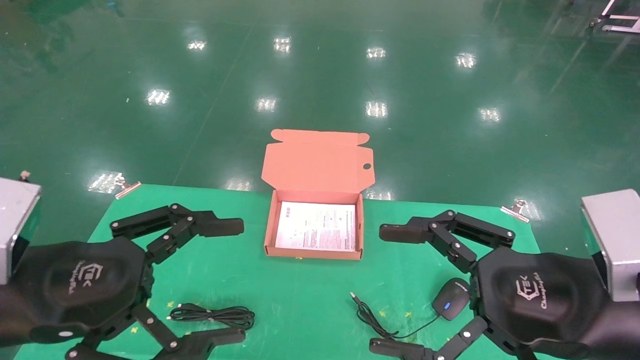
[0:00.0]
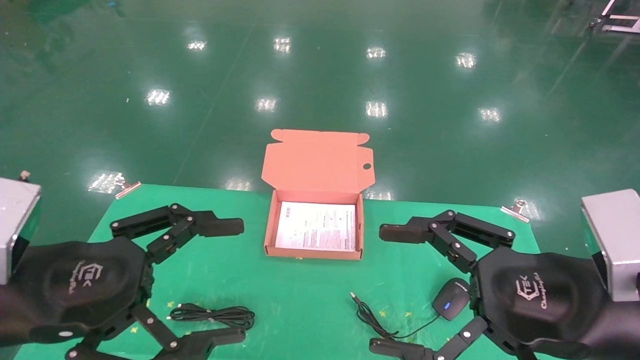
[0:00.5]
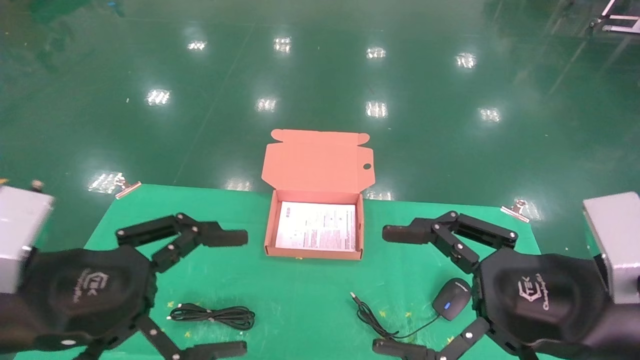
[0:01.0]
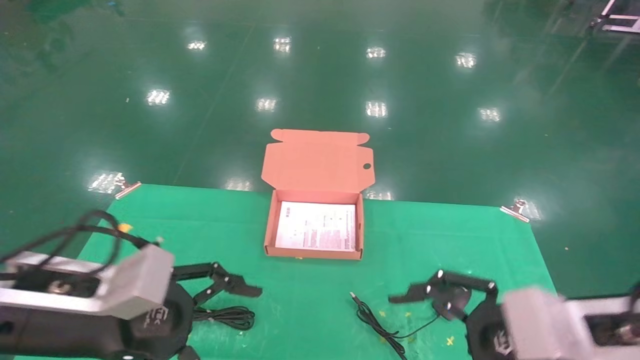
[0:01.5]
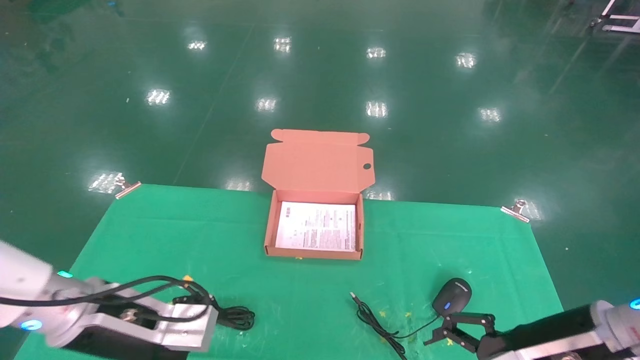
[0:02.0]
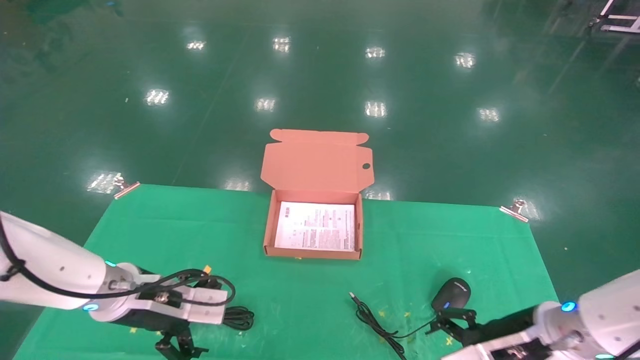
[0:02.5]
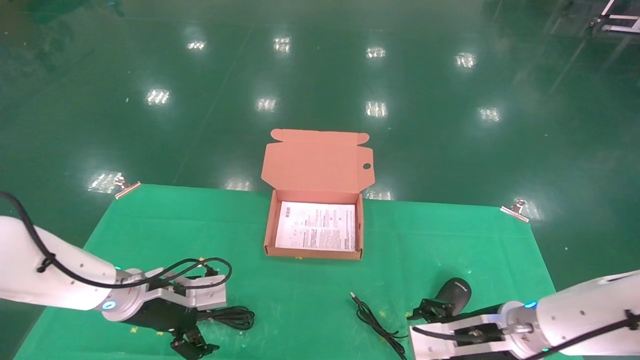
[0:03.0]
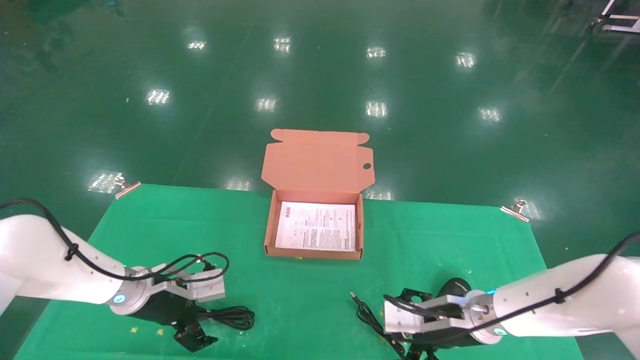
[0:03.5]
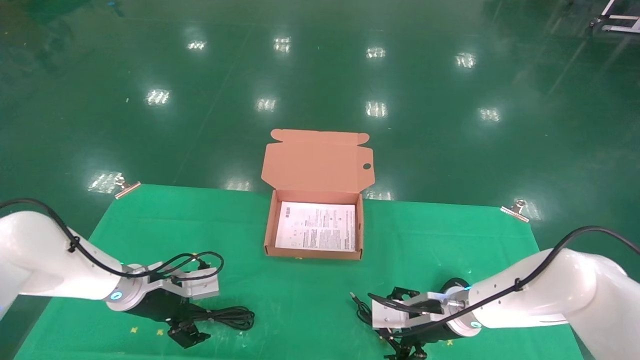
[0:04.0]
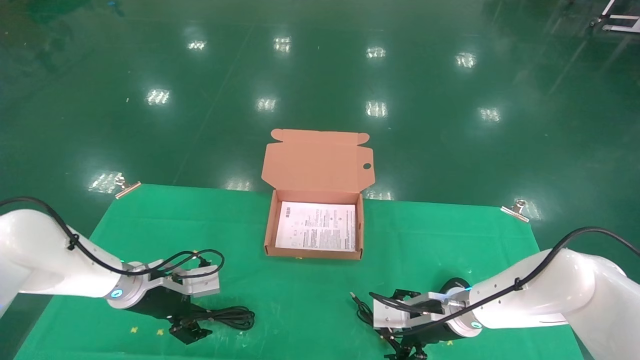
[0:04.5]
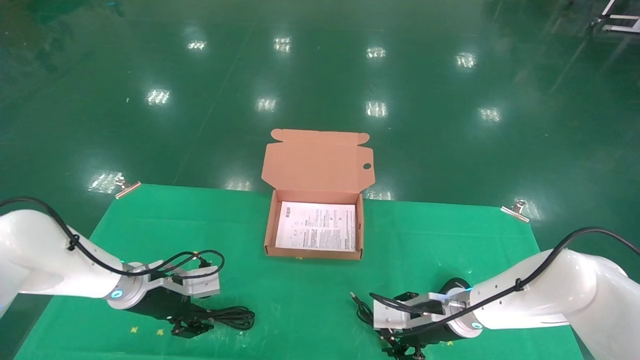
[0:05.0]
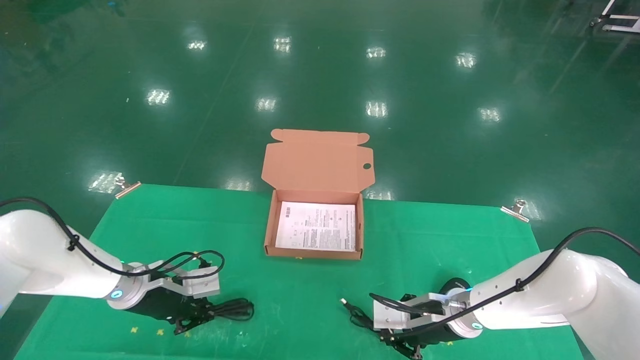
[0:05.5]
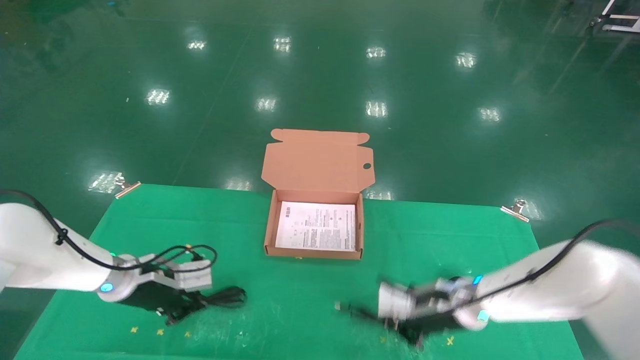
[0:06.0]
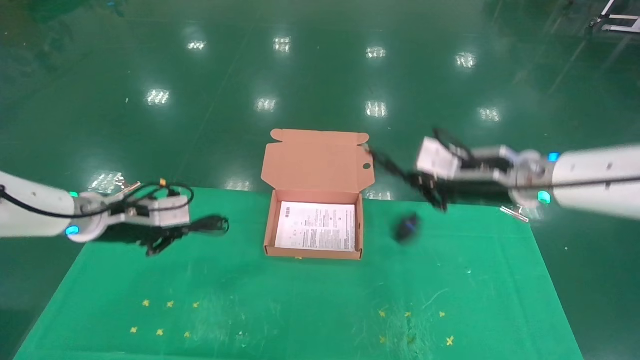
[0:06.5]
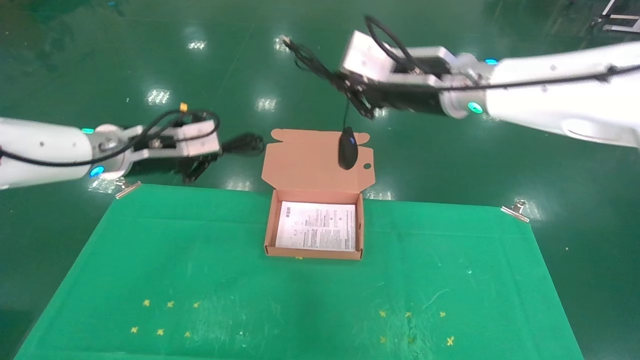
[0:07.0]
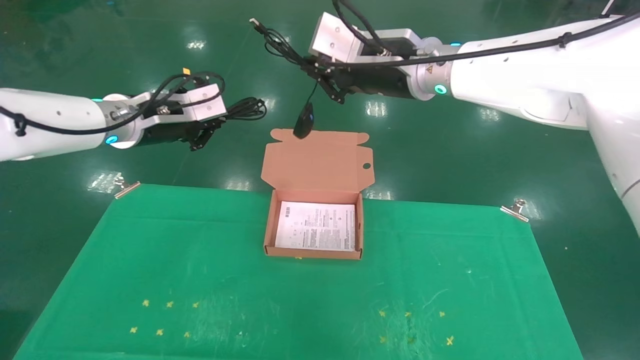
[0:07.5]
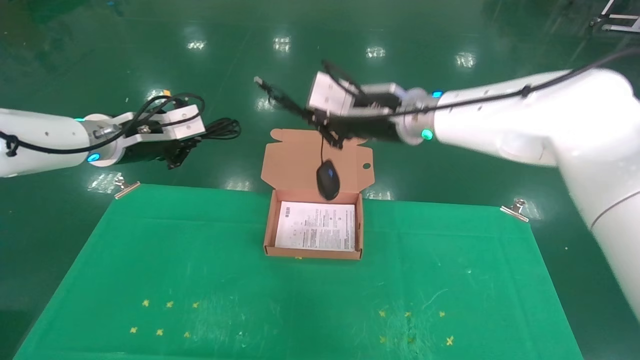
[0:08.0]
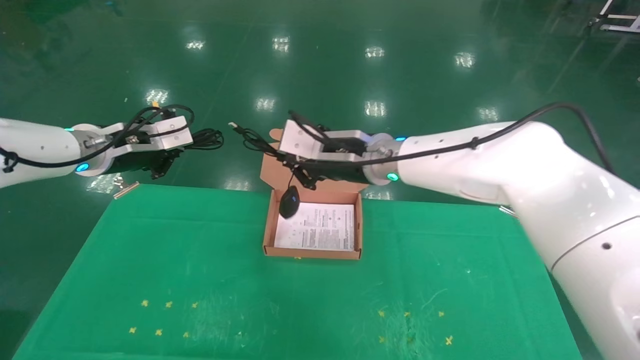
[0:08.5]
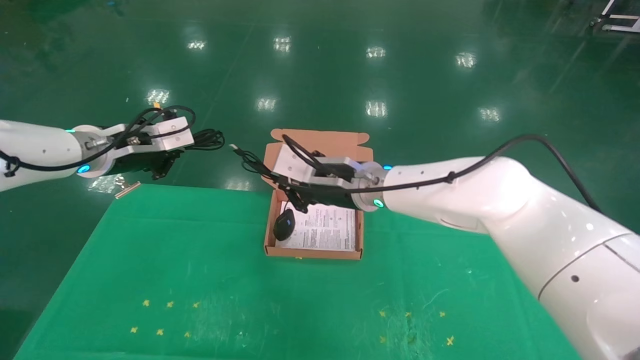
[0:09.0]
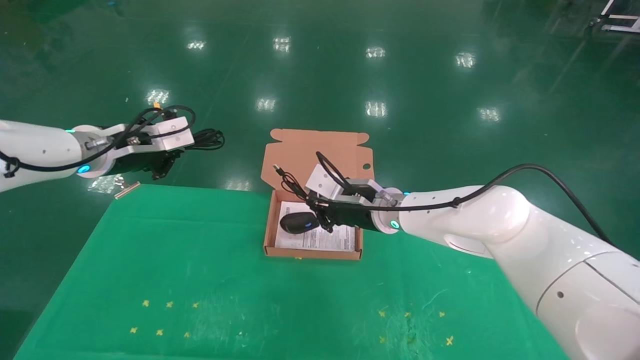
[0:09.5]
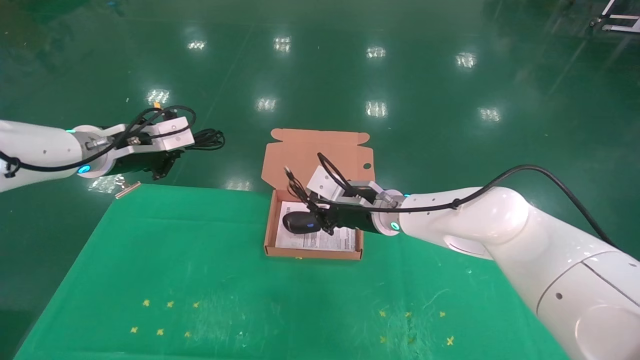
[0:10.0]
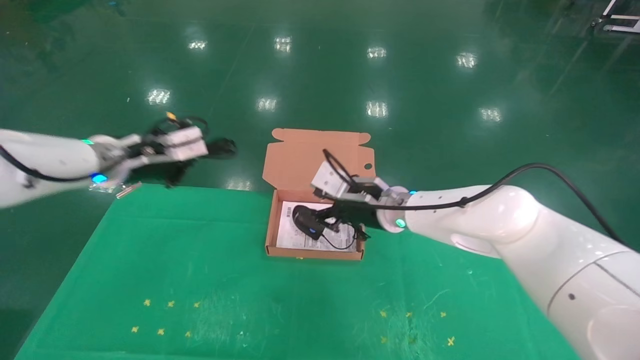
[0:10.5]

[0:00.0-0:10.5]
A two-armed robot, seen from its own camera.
Task of the whole recording: grasp data cable left put into box grasp mouse right put into box.
Step, 0:00.0 to 0:06.0: Grab and pick up both the mouse and power cord from the accessory packaging area at the same time.
0:00.0 to 0:02.0: The right gripper moves downward and forward, some 10 cm; the left gripper heads forward and downward, covering about 15 cm.
0:02.0 to 0:04.0: The right gripper heads forward, downward and to the left, covering approximately 20 cm. Meanwhile the left gripper moves forward and downward, roughly 15 cm.
0:04.0 to 0:06.5: The right gripper shifts some 25 cm upward, and closes its fingers. The left gripper is displaced upward by roughly 15 cm, and closes up.
0:06.5 to 0:08.5: The right gripper heads to the left, covering about 15 cm; the left gripper moves upward, about 10 cm.
0:08.5 to 0:10.5: The right gripper heads downward, covering some 10 cm.

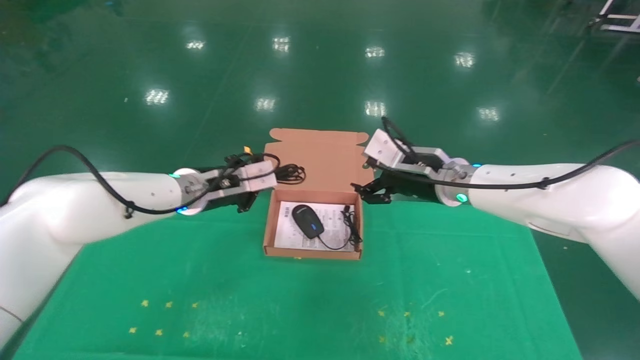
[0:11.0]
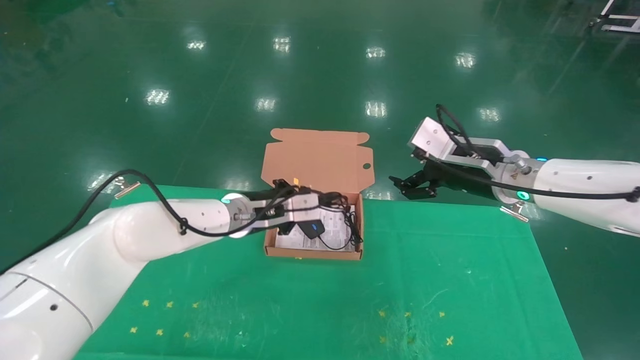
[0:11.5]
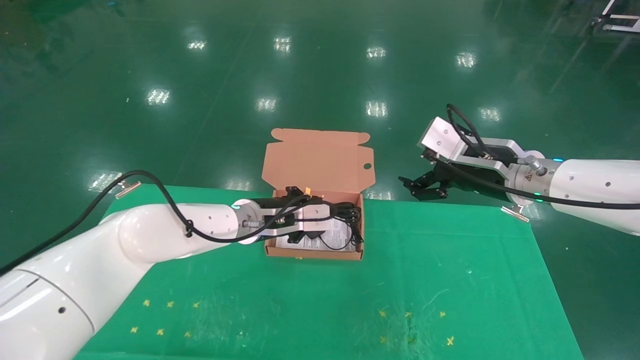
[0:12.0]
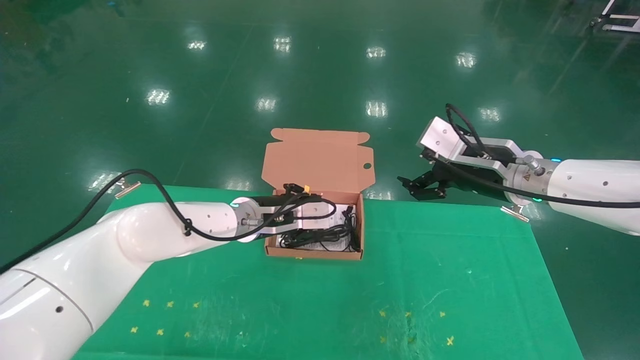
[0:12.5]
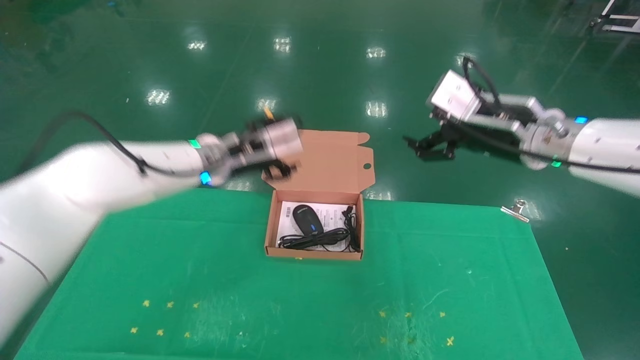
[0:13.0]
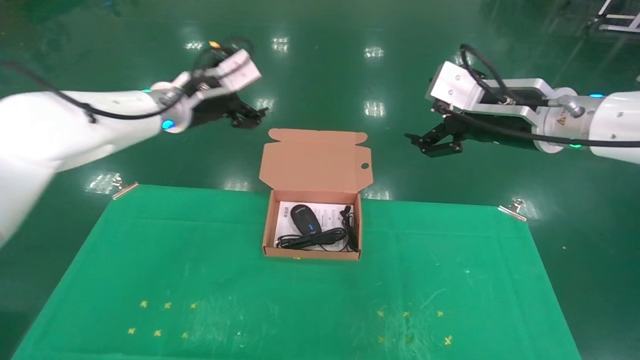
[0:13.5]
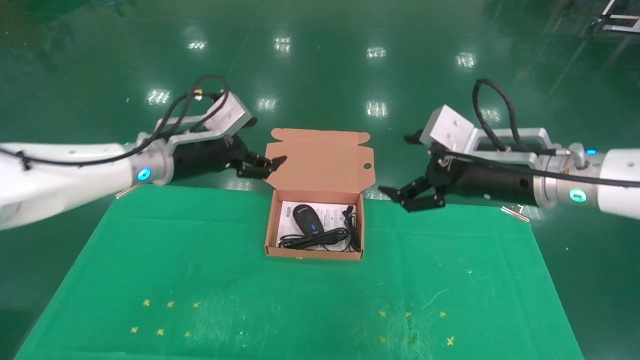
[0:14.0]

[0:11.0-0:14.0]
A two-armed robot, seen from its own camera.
Task of the whole recording: grasp data cable left put into box grasp mouse right put into box.
Step, 0:11.0 to 0:13.0: Place the mouse and power cord into the box.
0:11.0 to 0:12.5: The left gripper shifts about 10 cm to the right and downward; the right gripper goes approximately 10 cm to the right and backward.
0:12.5 to 0:14.0: The right gripper is displaced backward by roughly 5 cm. The left gripper moves to the left and upward, some 15 cm, and opens.

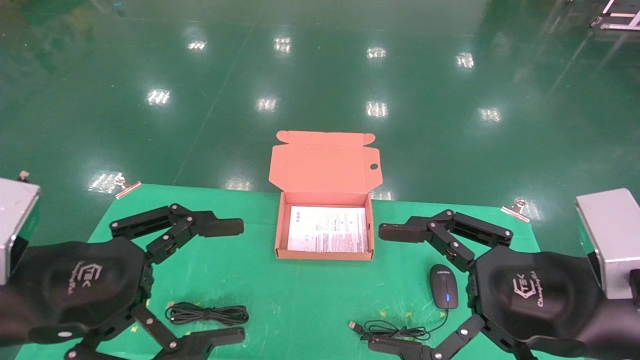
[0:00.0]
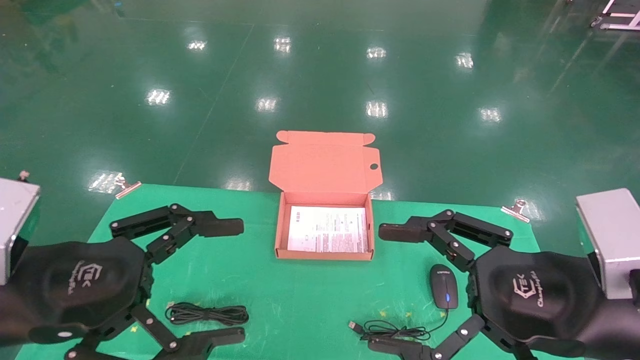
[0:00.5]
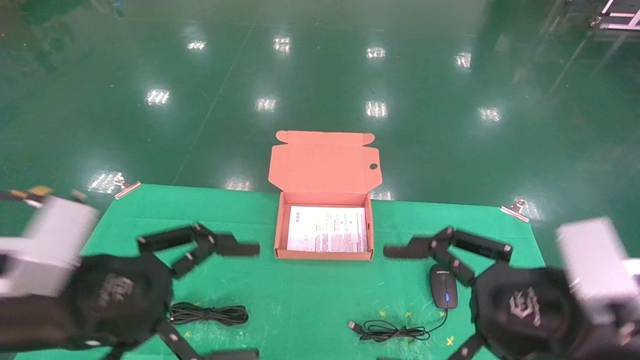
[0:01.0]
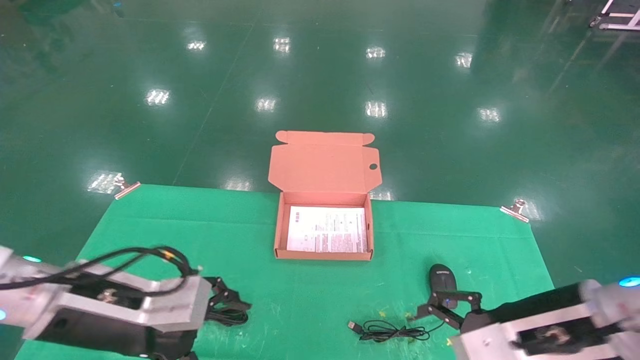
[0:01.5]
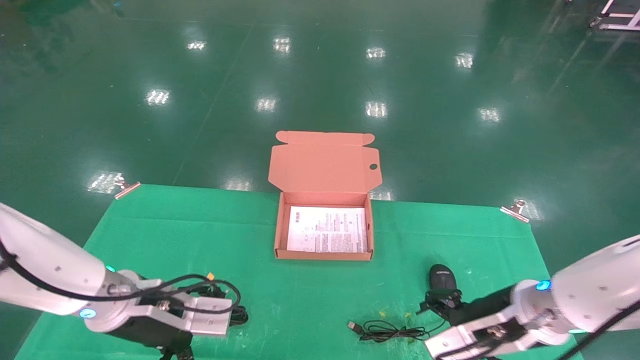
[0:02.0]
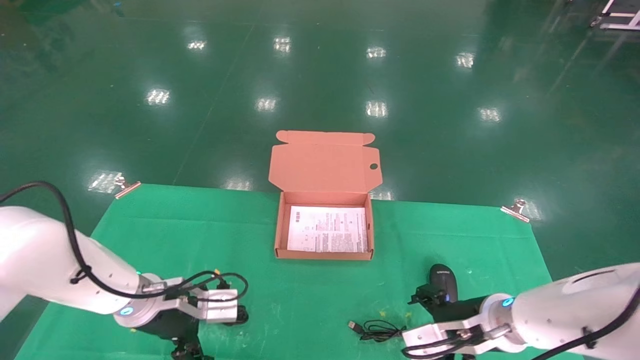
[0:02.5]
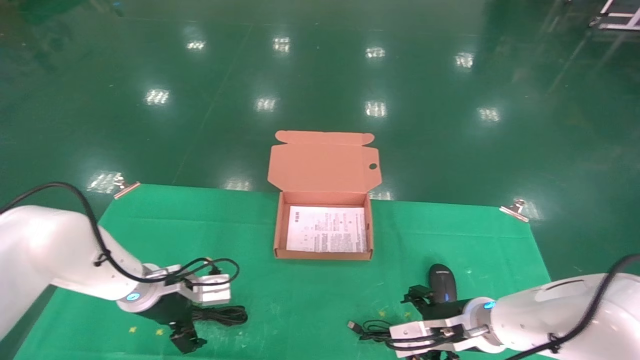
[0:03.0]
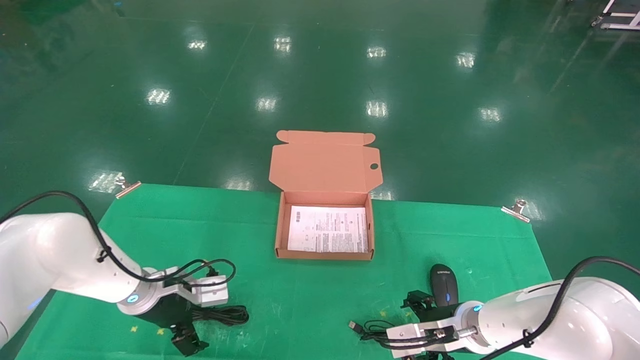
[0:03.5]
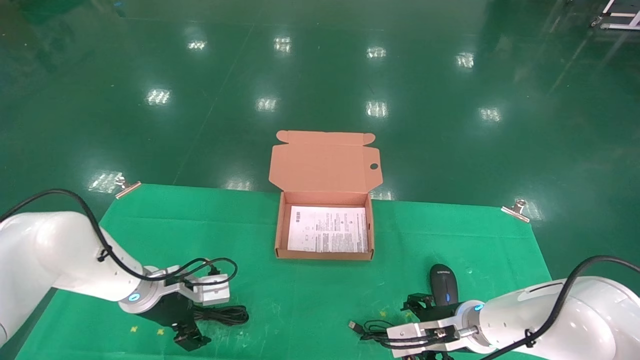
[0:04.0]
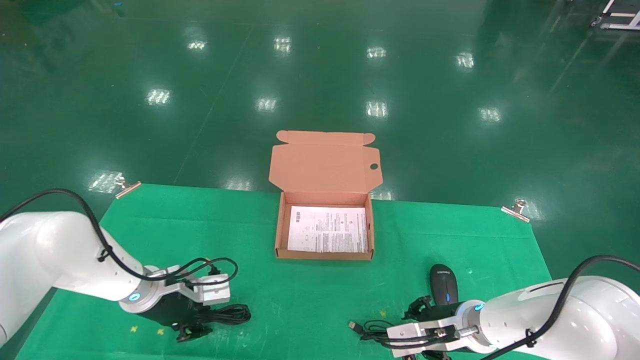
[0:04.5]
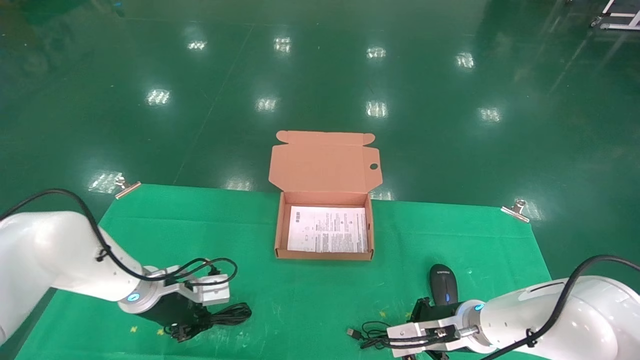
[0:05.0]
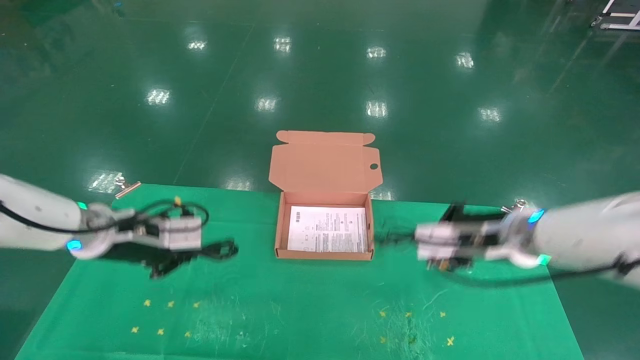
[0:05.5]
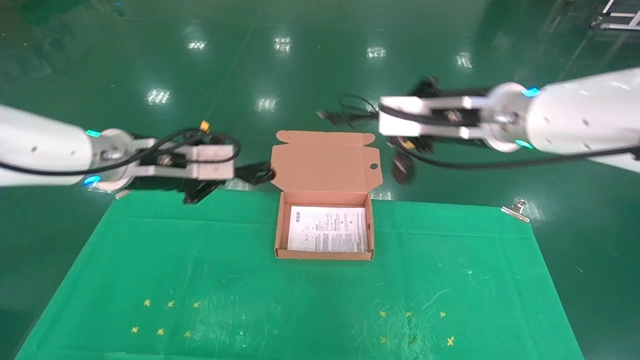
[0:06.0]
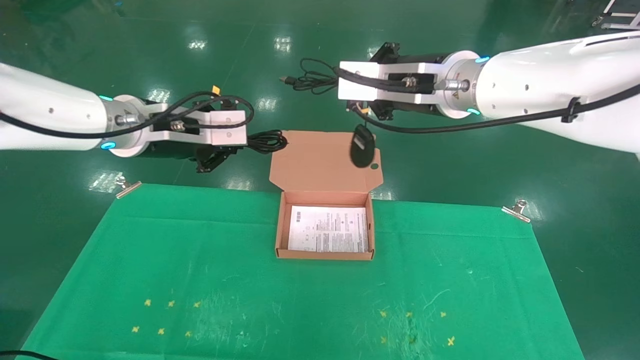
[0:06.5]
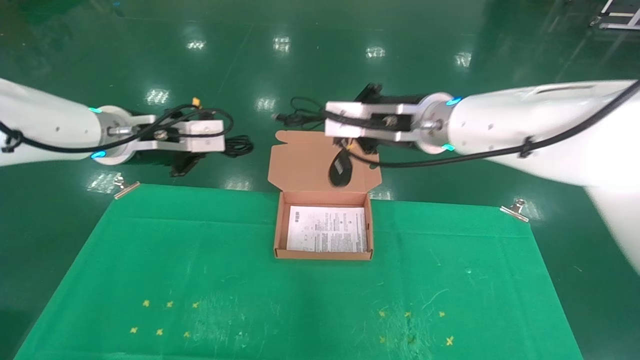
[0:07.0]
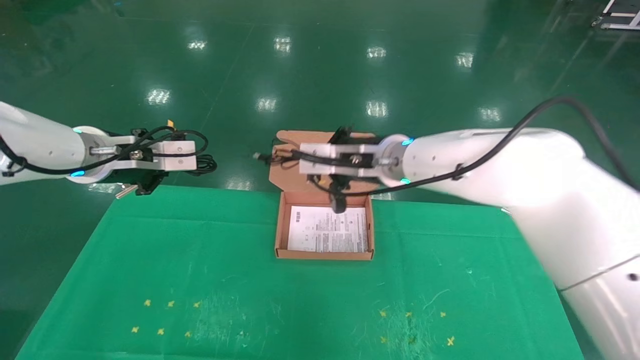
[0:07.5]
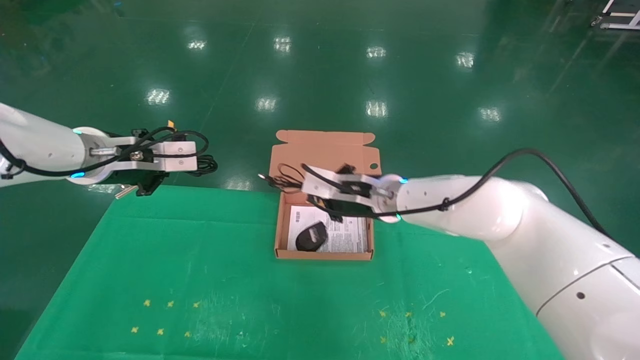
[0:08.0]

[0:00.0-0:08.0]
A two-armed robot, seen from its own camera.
Task of the whole recording: grasp data cable left put into box grasp mouse right put into box.
Step, 0:01.0 to 0:05.0: Grab and pick up both the mouse and power cord from the accessory packaging area at the same time.
0:00.0 to 0:02.0: Both grippers travel together forward and downward, roughly 15 cm.
0:02.0 to 0:04.0: The left gripper goes about 10 cm forward and downward, while the right gripper moves downward and forward, approximately 10 cm.
0:04.0 to 0:06.0: The grippers both shift upward by roughly 25 cm. The right gripper closes its fingers. Meanwhile the left gripper closes its fingers.
0:06.0 to 0:08.0: The right gripper moves downward, to the left and forward, some 20 cm.
